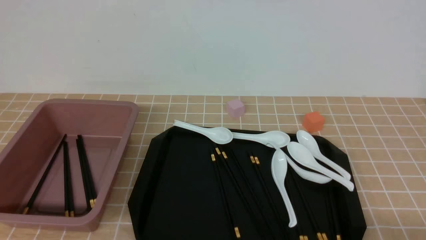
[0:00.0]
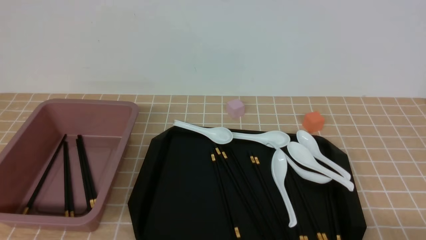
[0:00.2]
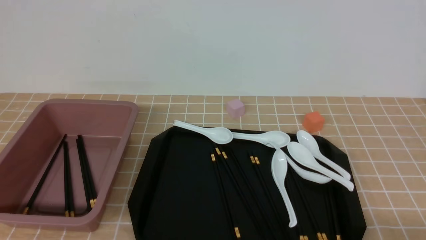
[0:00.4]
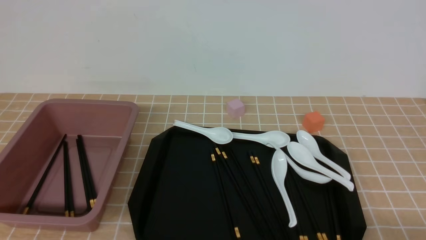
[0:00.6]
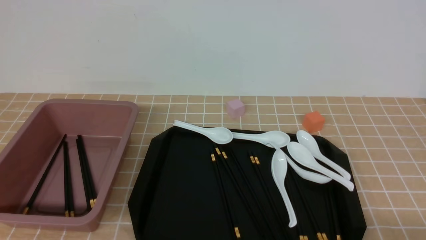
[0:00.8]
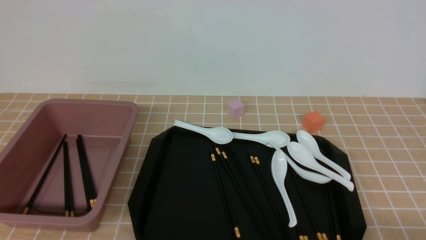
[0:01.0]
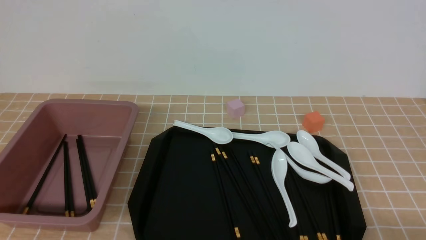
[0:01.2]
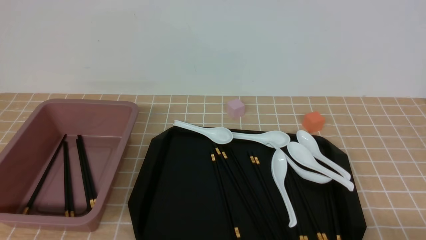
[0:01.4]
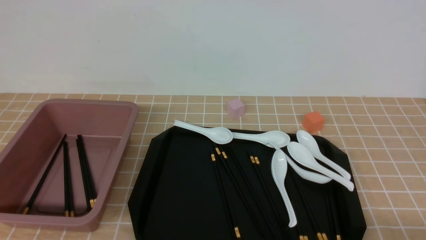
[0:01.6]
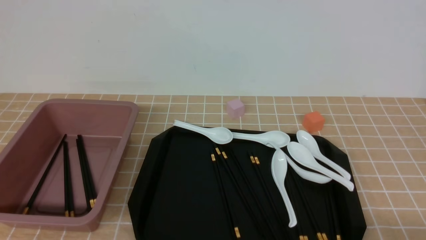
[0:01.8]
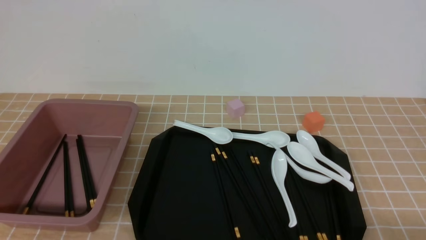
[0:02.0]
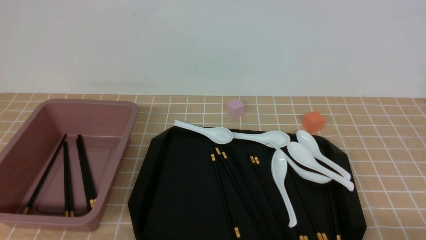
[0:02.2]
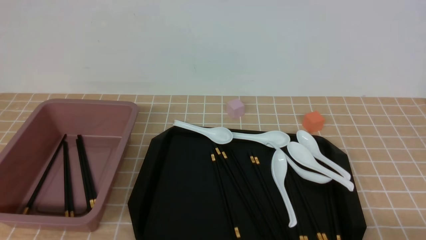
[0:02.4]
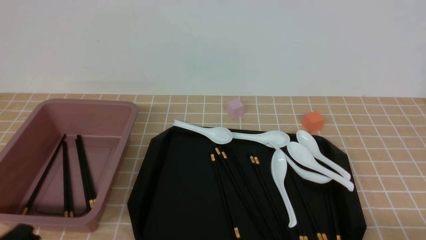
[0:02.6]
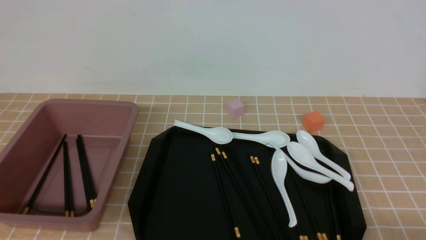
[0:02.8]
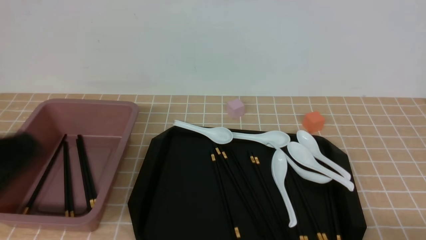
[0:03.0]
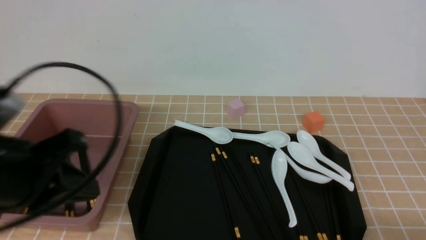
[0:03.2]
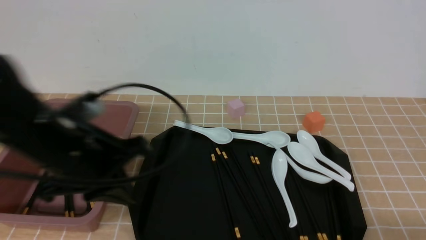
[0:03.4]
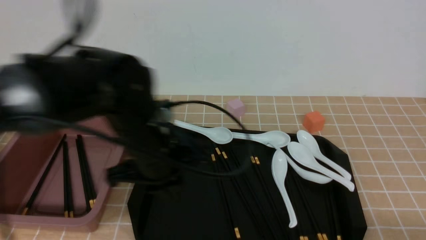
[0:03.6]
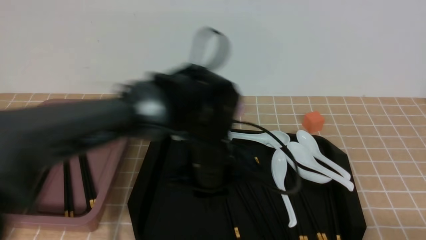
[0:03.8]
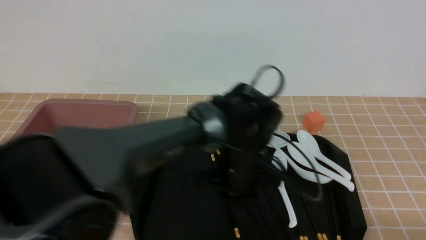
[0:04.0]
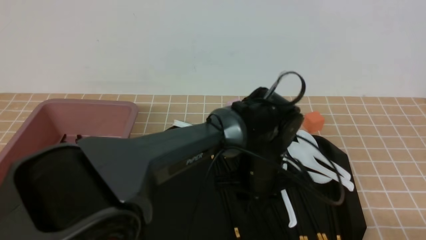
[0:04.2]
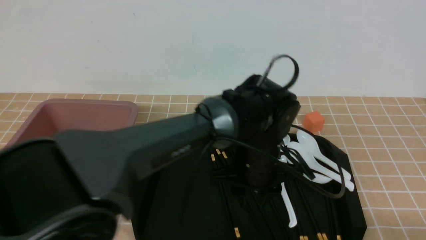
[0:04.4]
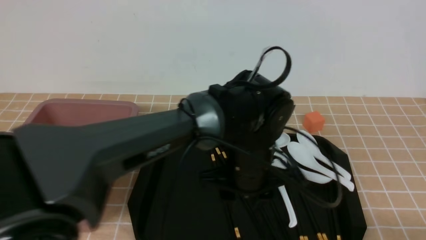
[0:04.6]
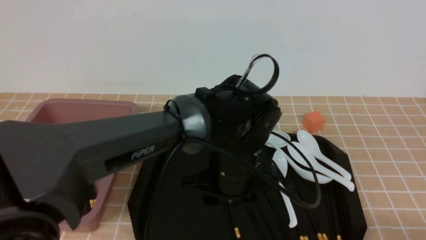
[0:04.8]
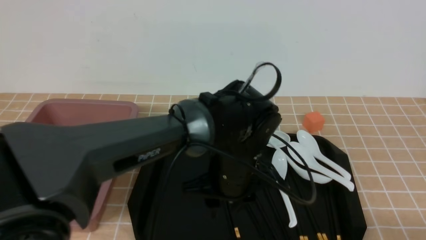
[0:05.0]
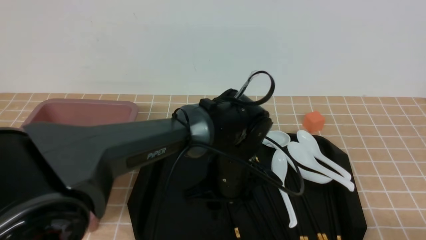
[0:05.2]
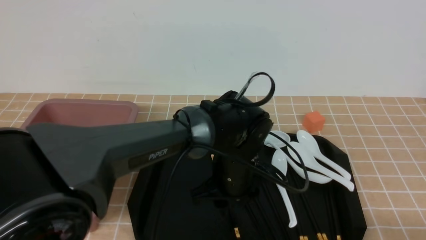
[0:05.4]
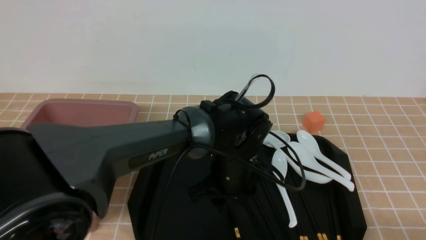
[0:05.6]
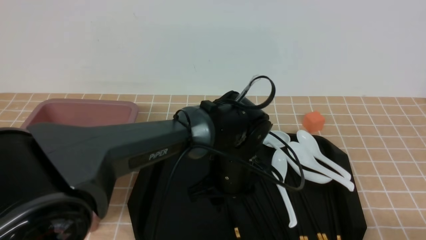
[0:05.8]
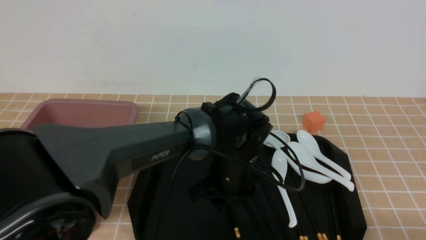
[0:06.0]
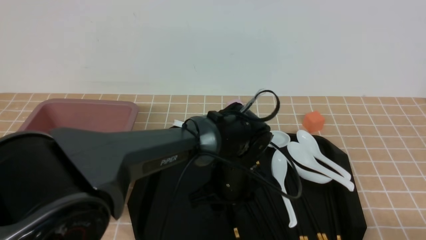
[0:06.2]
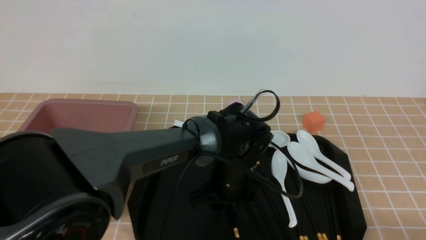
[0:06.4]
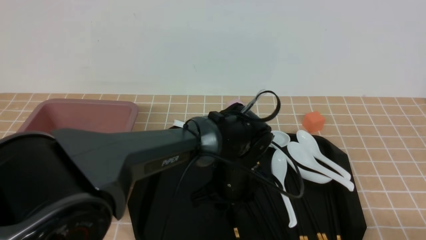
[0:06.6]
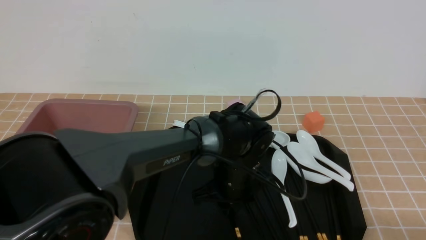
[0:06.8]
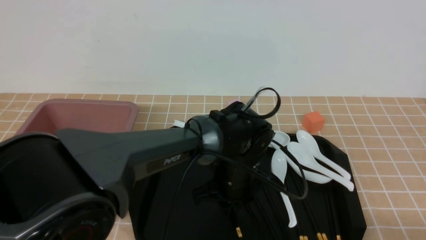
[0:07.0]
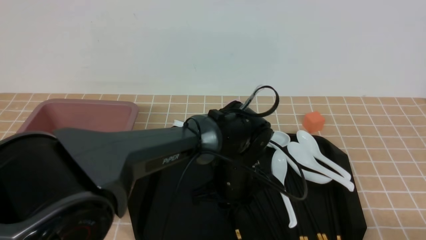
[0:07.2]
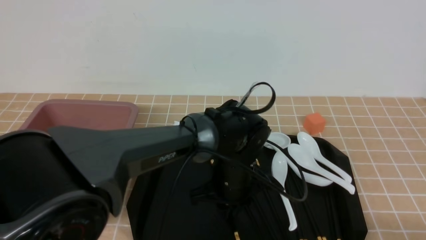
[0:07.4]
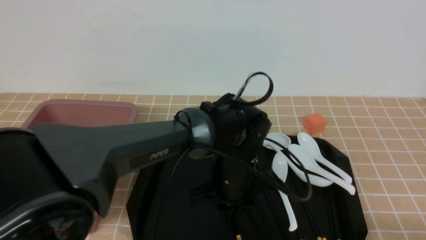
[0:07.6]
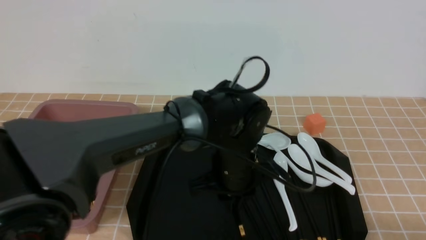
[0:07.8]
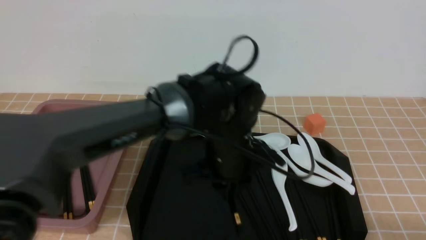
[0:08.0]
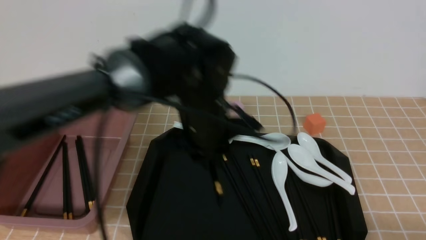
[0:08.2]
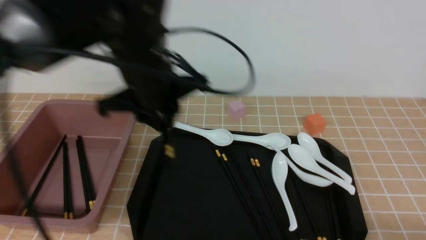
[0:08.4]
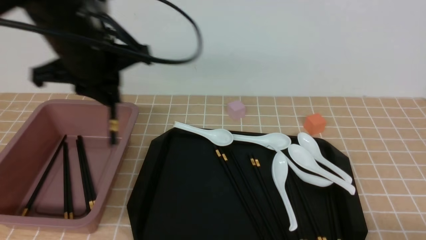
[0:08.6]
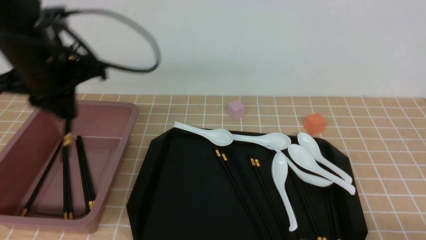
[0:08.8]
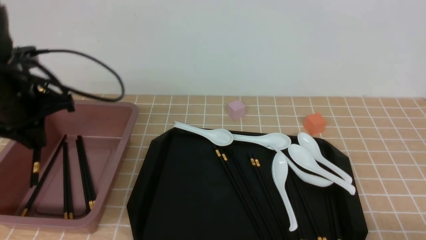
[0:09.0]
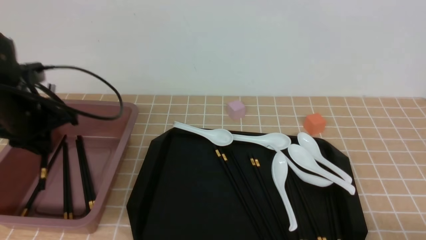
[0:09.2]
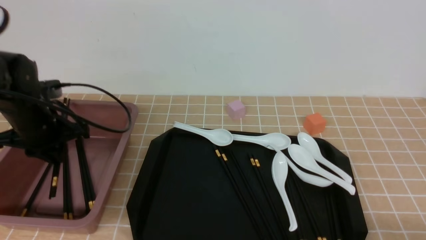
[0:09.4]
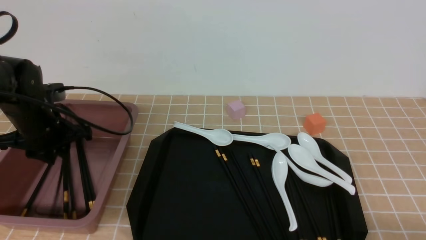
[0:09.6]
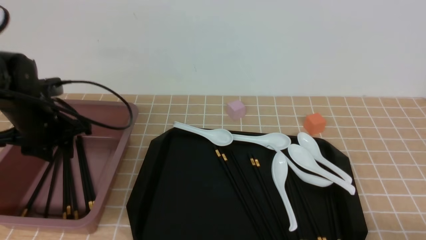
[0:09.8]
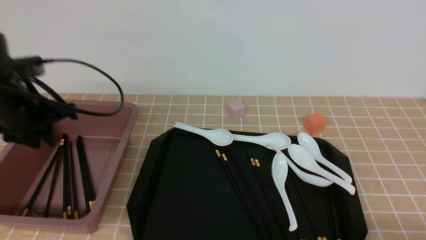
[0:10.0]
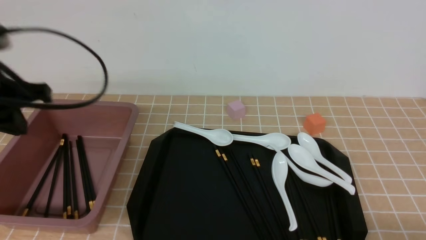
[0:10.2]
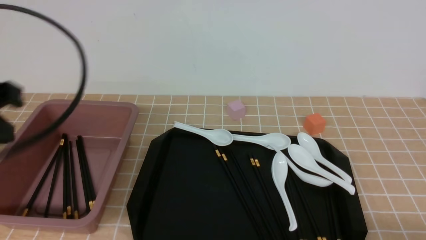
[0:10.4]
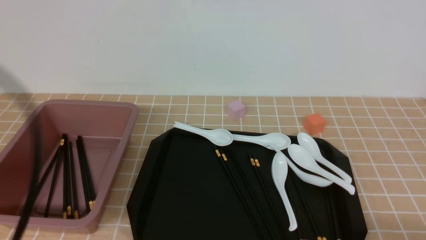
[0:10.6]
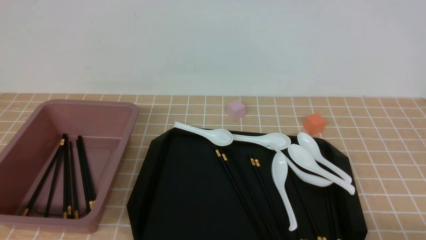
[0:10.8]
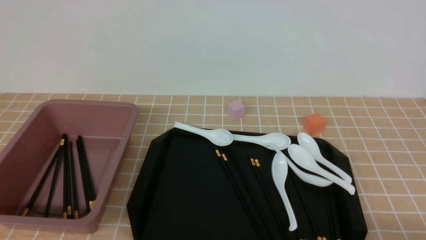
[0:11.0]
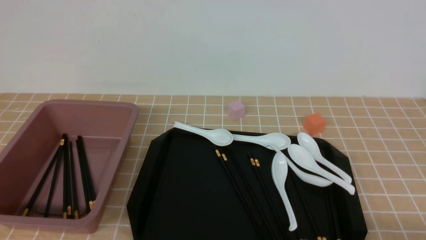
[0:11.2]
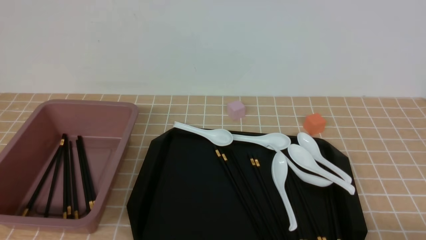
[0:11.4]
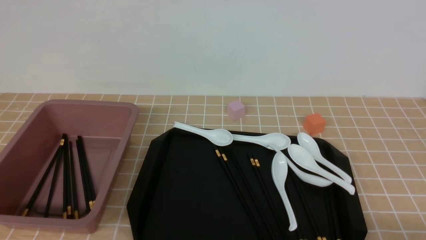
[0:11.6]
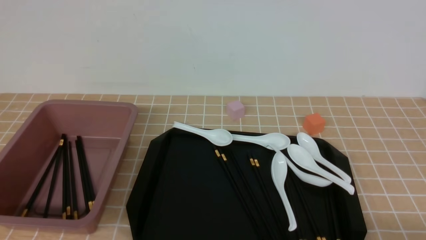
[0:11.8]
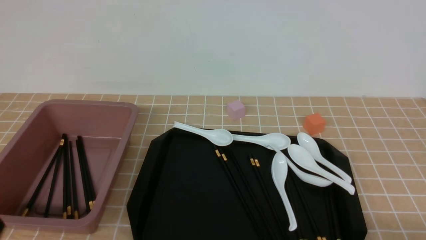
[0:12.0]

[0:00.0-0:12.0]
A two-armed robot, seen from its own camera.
Step, 0:00.0 to 0:07.8: use the left arm to grab a pair of chopsticks.
Step, 0:08.0 to 0:10.0: use the left arm to put the chopsticks into the lunch box.
0:00.0 to 0:01.6: Neither gripper changes place.
0:01.6 to 0:03.0: The left gripper is displaced upward by approximately 15 cm, and closes up.
0:03.0 to 0:04.4: The left gripper is displaced to the right, forward and downward by roughly 40 cm, and opens up.
0:04.4 to 0:06.0: The grippers stay close to where they were, moving slightly.
0:06.0 to 0:07.6: The left gripper closes up.
0:07.6 to 0:09.0: The left gripper is displaced to the left and upward by about 30 cm.
0:09.0 to 0:10.4: The left gripper moves backward and upward, approximately 20 cm, and opens, then closes again.
0:10.4 to 0:12.0: The left gripper heads downward and backward, covering roughly 20 cm.

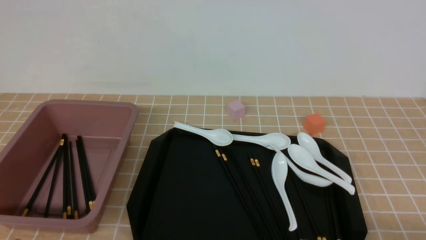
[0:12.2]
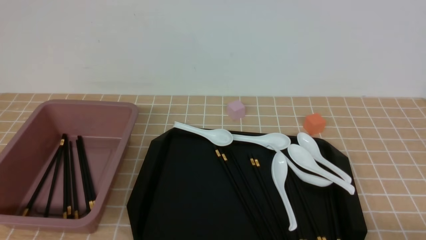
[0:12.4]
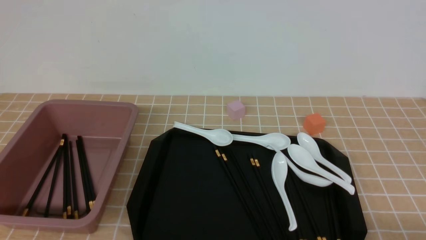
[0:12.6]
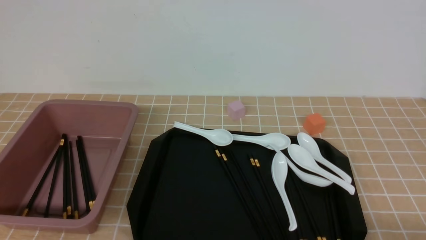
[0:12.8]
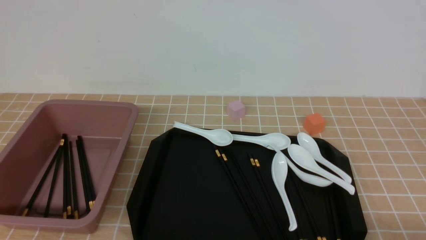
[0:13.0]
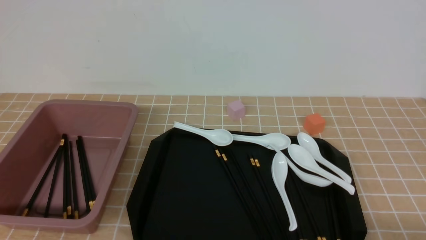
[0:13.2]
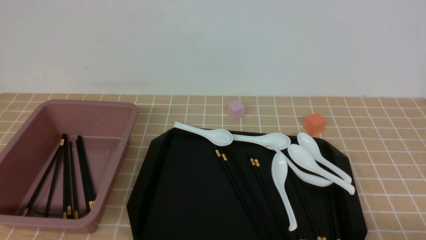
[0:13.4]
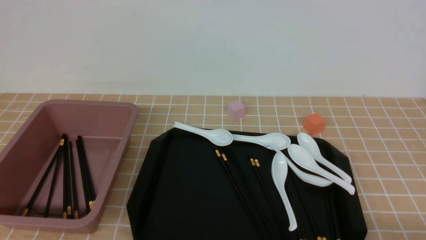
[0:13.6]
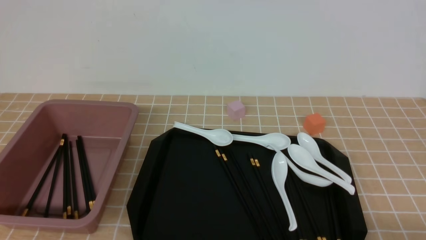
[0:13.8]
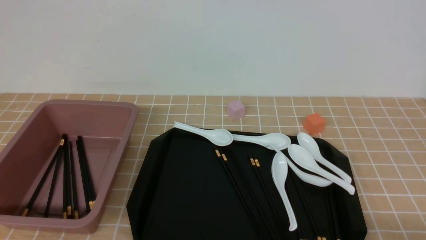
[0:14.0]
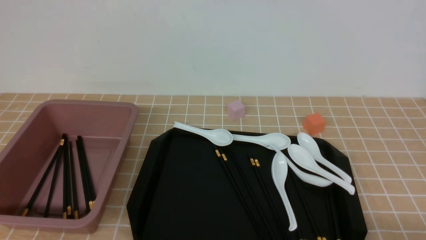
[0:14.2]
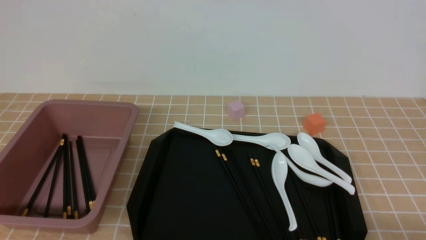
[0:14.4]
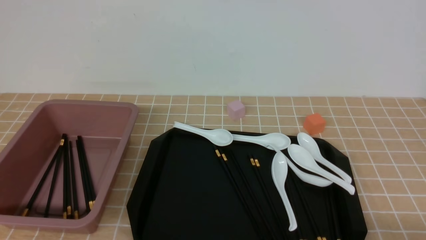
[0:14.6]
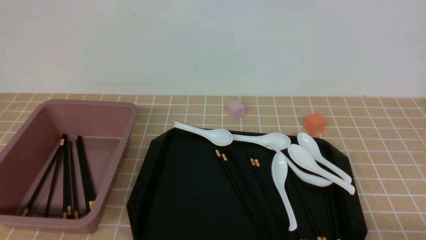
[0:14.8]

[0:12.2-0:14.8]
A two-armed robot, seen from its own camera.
0:13.4 to 0:14.8: Neither gripper changes place.
